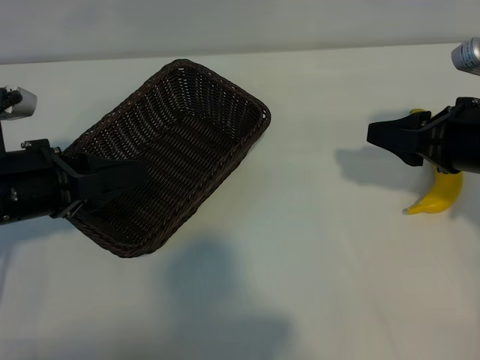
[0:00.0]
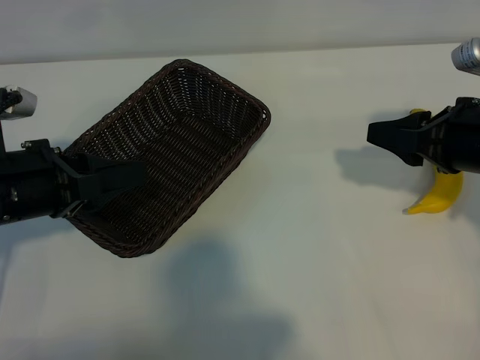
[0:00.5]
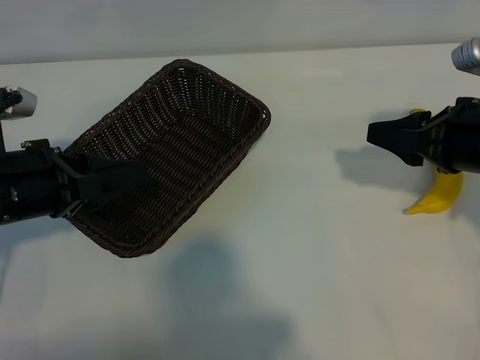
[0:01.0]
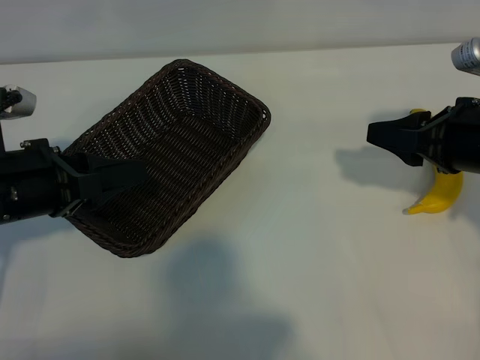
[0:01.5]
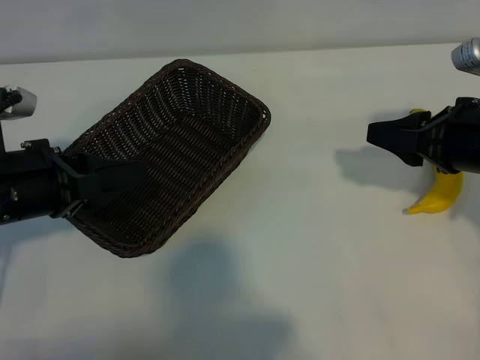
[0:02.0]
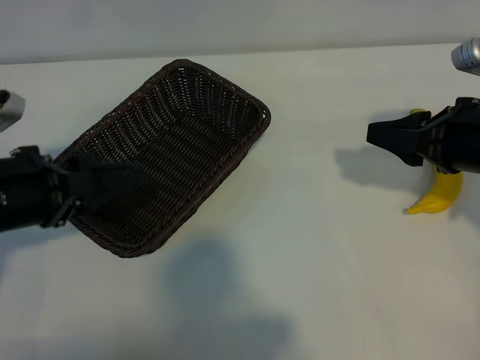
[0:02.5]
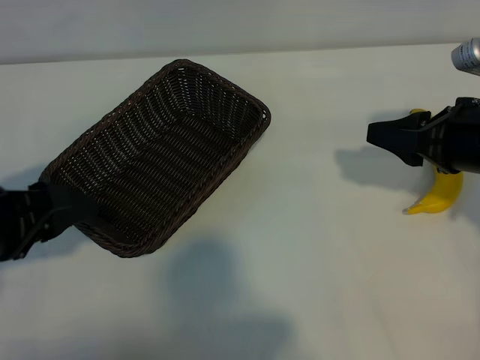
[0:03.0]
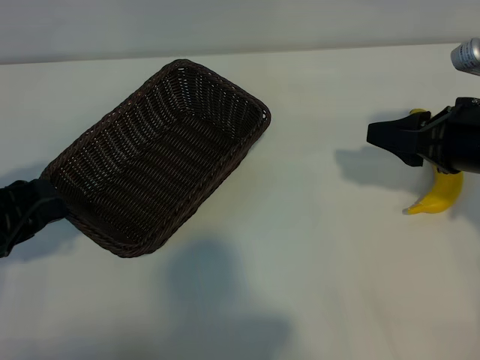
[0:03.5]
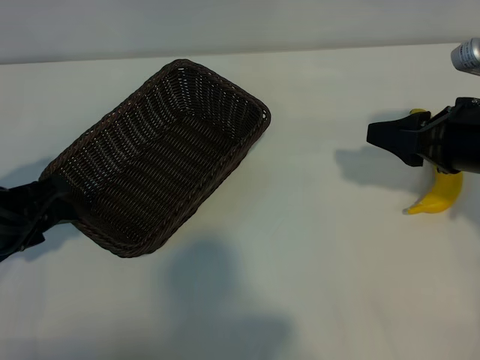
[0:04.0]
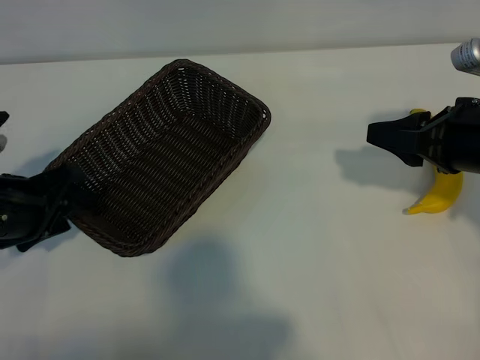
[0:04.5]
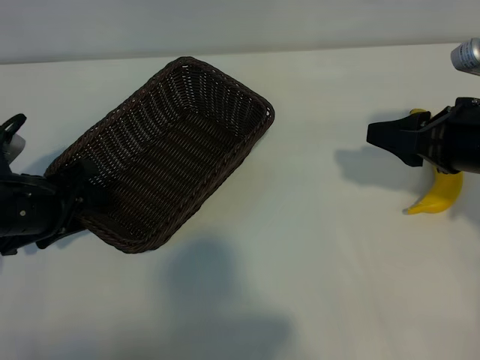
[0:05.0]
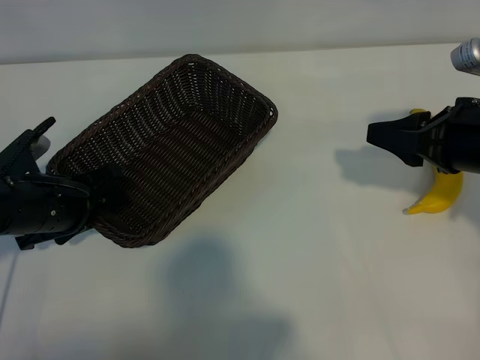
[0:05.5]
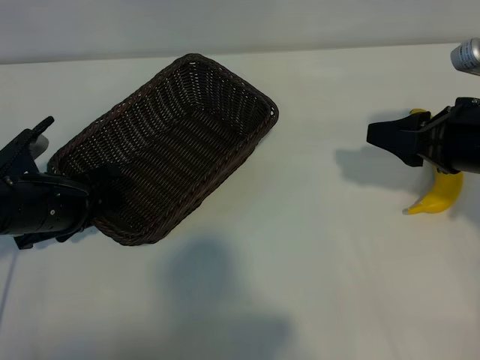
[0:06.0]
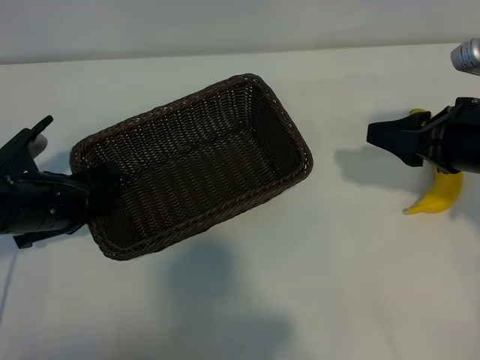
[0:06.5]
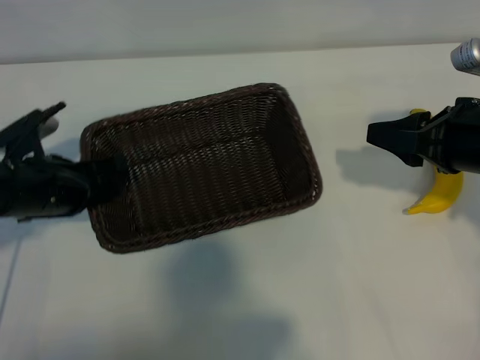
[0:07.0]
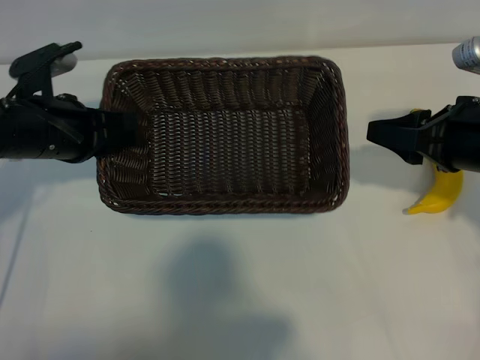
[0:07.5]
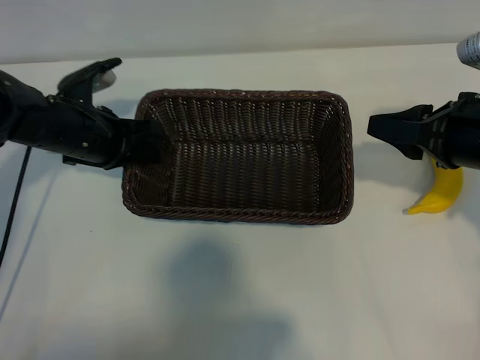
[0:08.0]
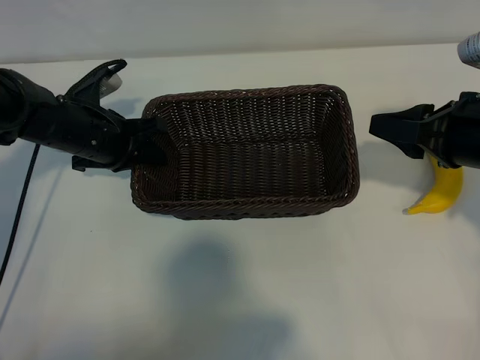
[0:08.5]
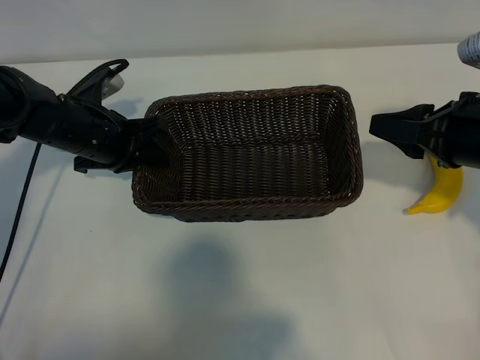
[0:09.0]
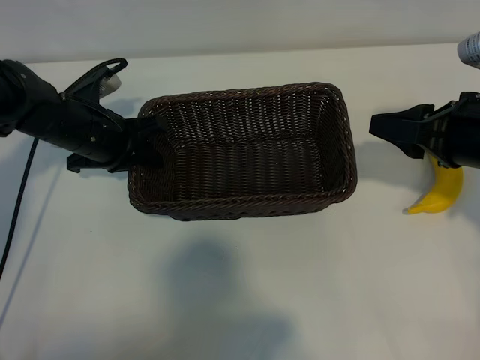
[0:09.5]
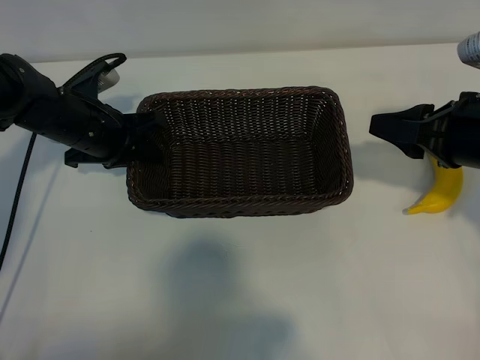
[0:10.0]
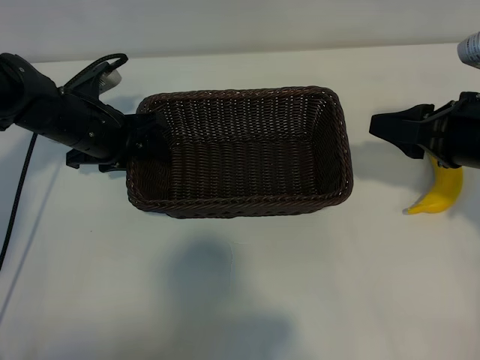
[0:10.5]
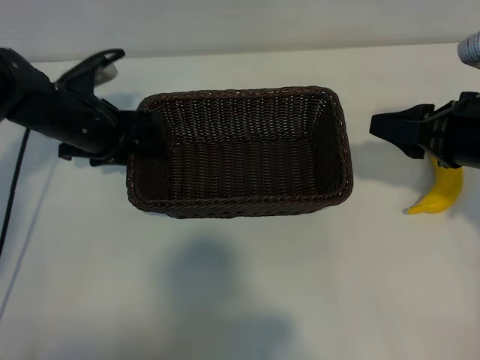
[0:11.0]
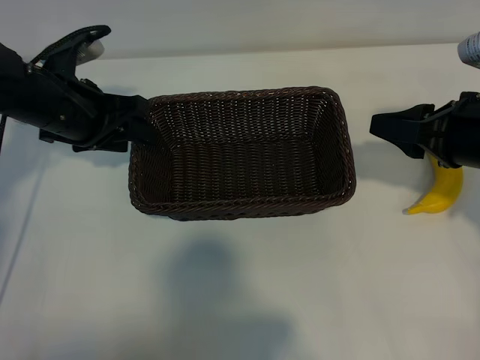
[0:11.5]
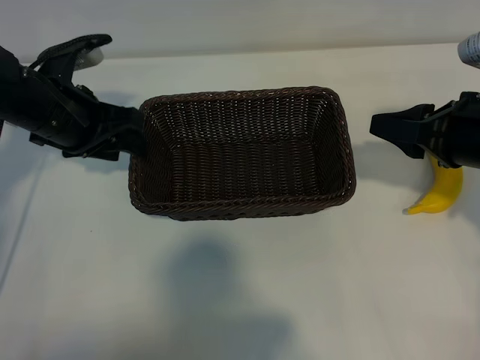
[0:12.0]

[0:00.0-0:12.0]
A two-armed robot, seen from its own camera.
Task of the whole recording: pick up the banana and put it into the basket.
Step, 0:01.5 to 0:05.5: Grasp the basket with the left gripper.
Step, 0:06.0 to 0:11.0: Place the basket in the center of the table with the left gripper.

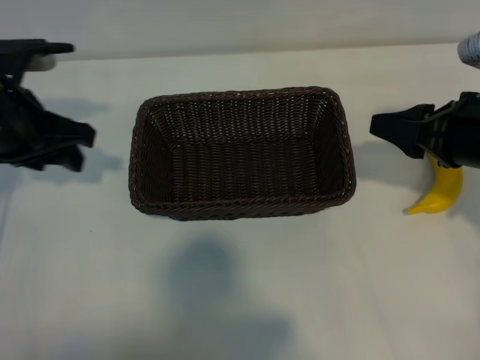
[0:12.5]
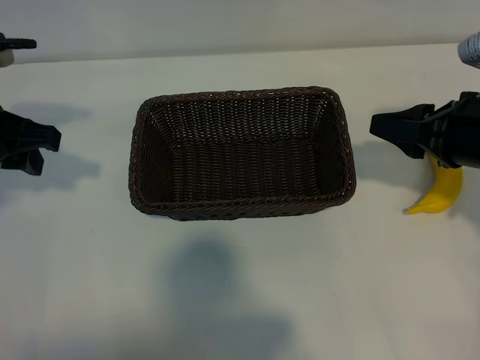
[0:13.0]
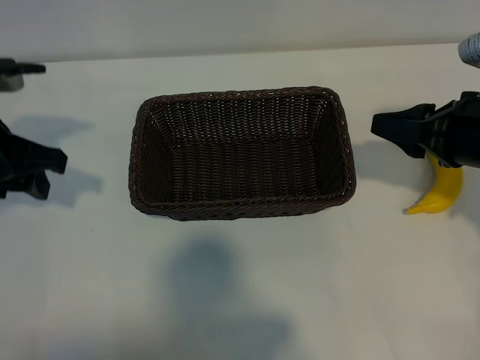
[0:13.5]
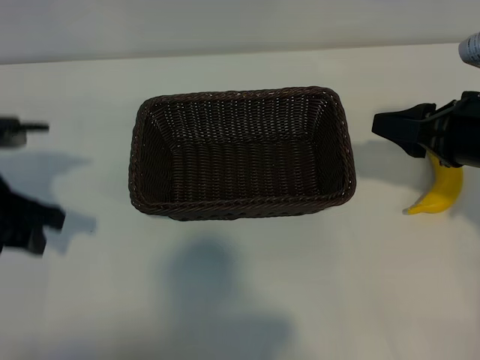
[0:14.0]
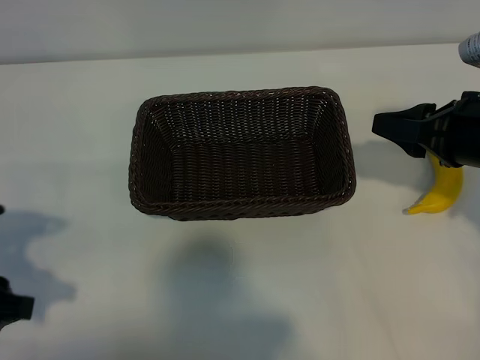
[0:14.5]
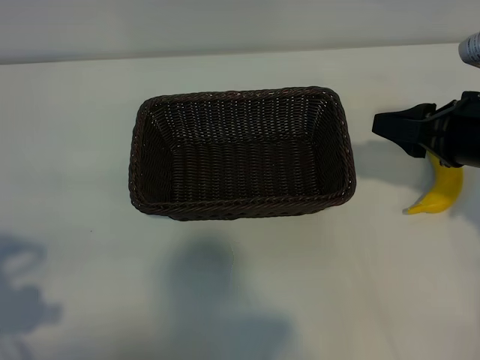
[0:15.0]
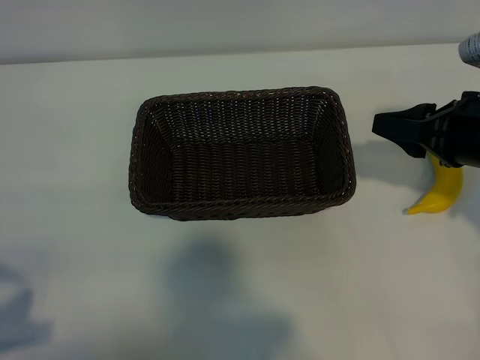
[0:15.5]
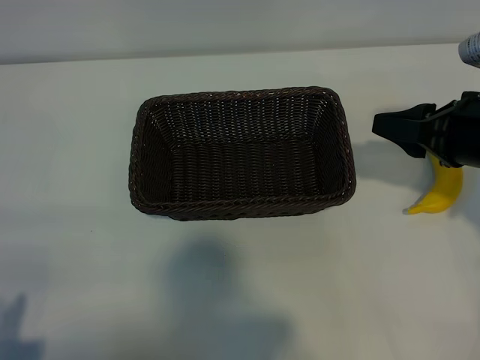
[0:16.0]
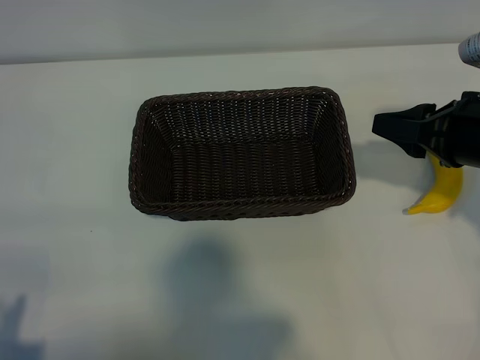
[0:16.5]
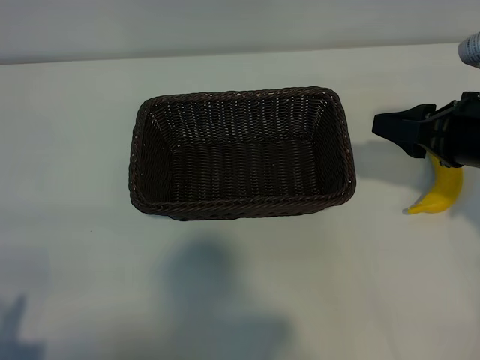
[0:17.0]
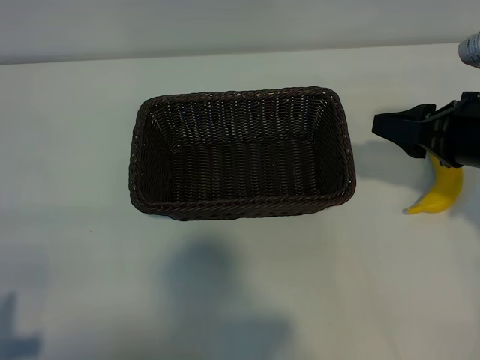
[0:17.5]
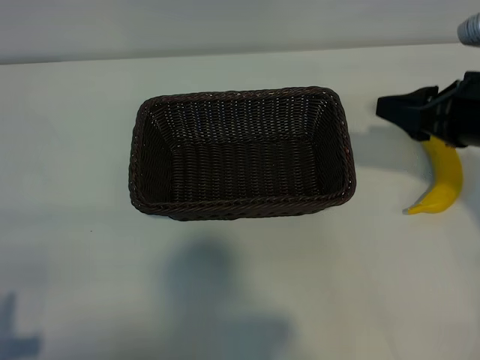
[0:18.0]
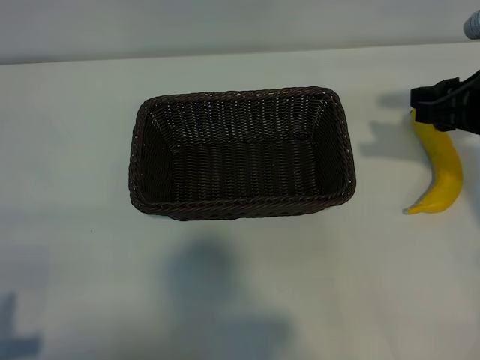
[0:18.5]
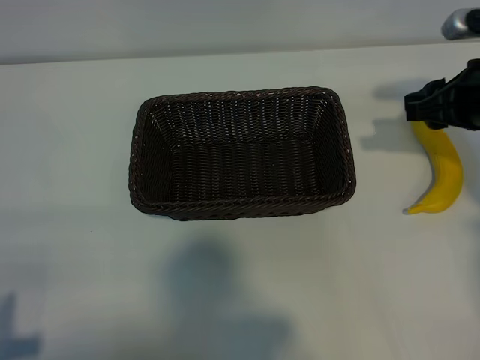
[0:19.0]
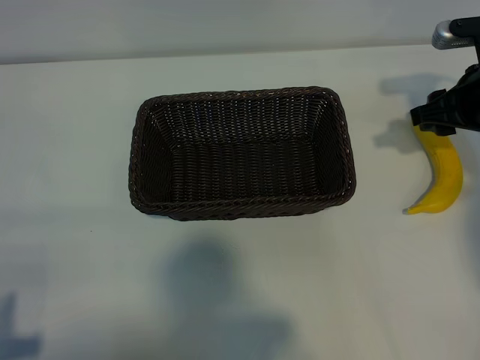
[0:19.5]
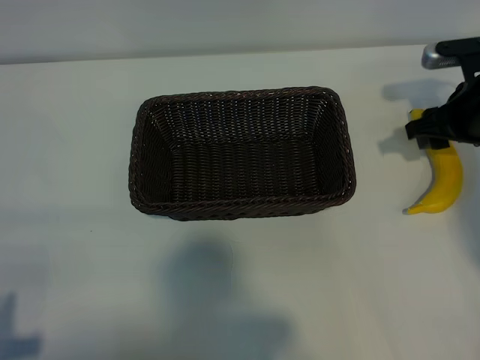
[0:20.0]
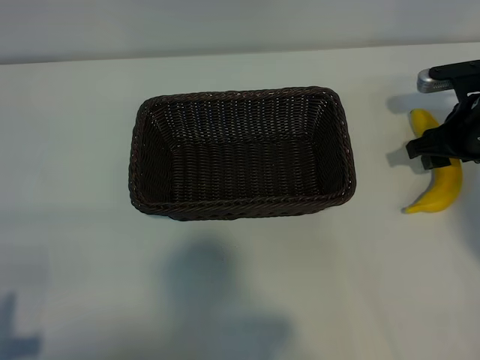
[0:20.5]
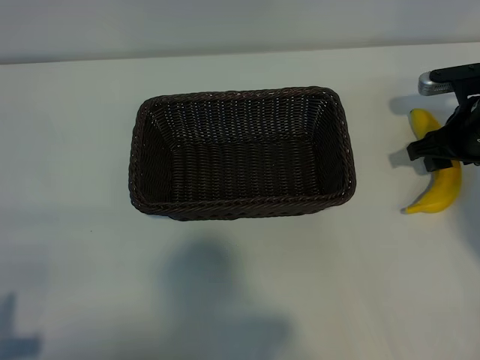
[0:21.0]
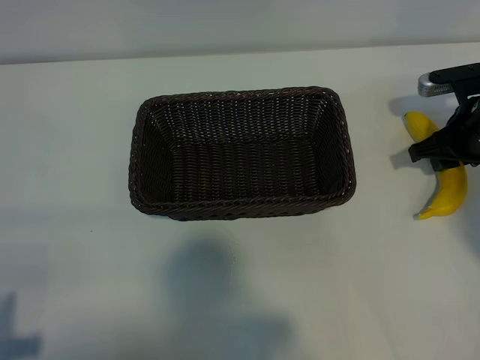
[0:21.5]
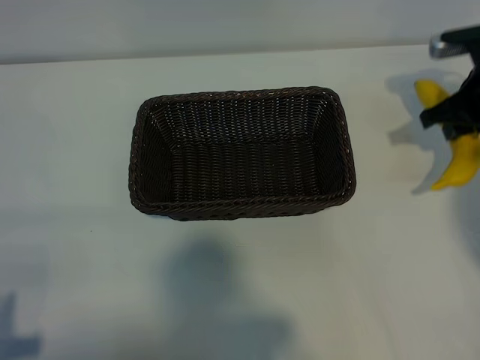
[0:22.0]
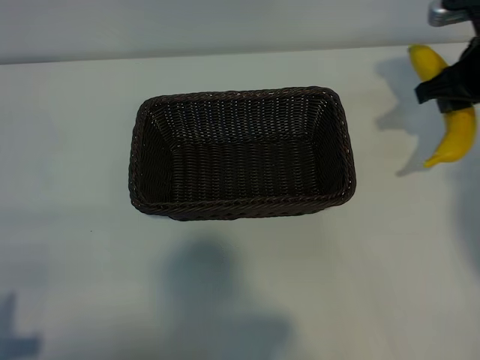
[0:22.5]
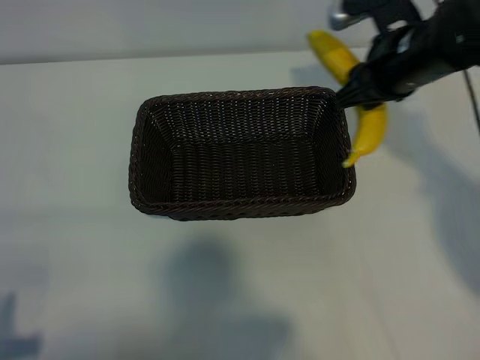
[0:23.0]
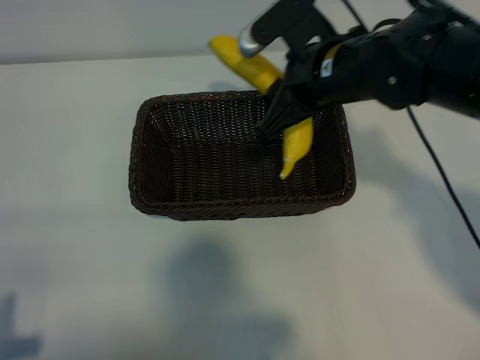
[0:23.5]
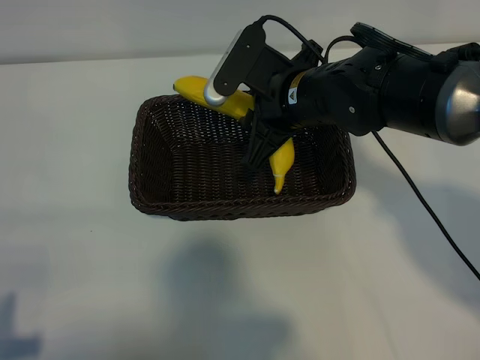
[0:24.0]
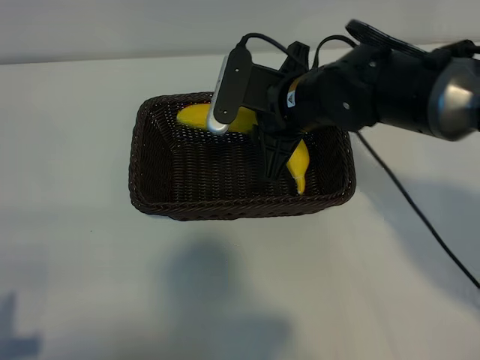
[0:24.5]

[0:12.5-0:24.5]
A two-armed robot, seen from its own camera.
Task of the whole recording: pick up the banana and put it into the basket.
Step, 0:12.5 to 0:21.0: Grasp the banana with right gripper.

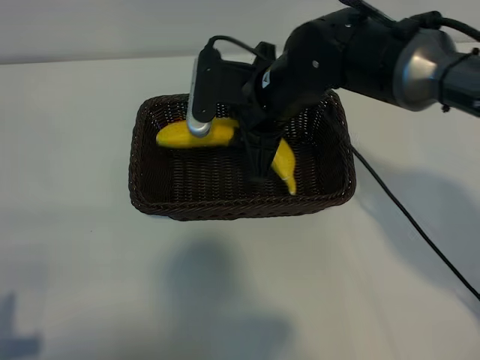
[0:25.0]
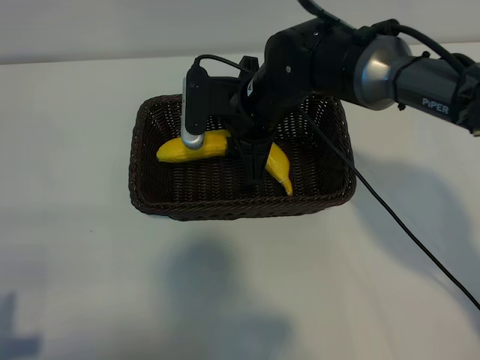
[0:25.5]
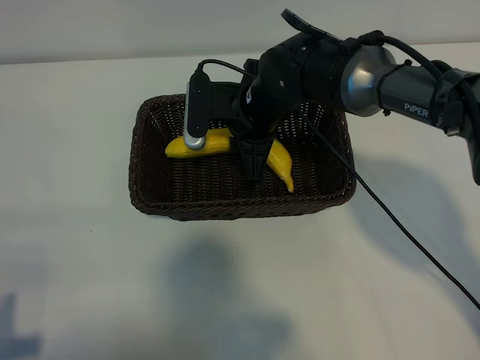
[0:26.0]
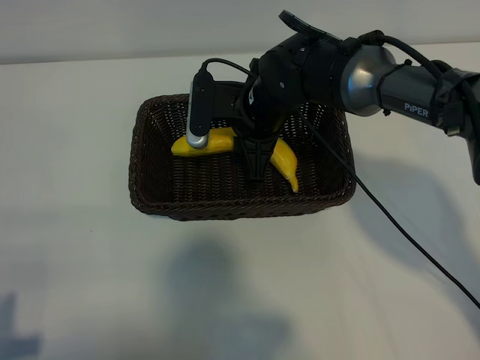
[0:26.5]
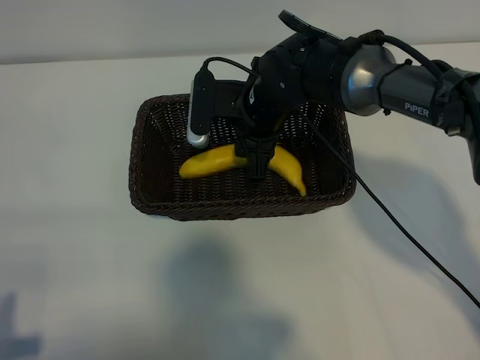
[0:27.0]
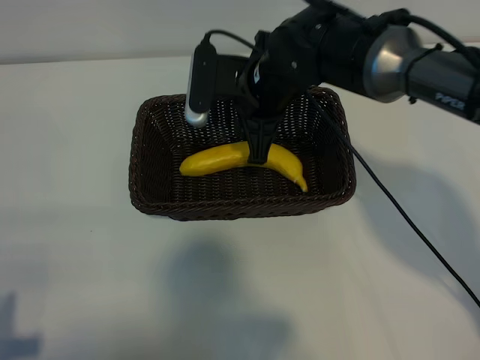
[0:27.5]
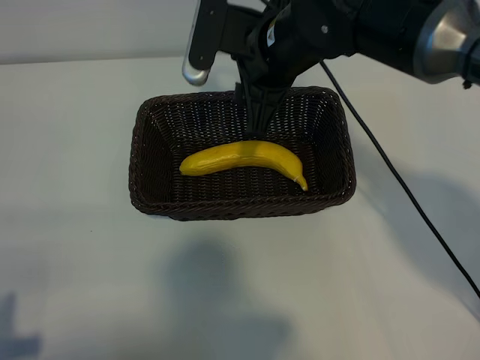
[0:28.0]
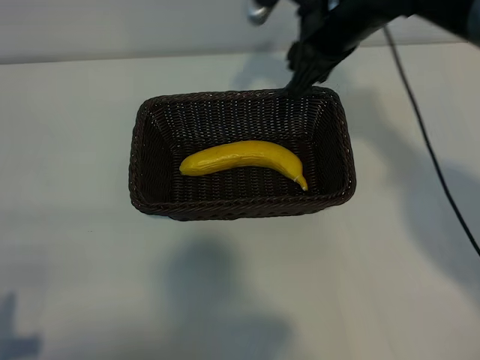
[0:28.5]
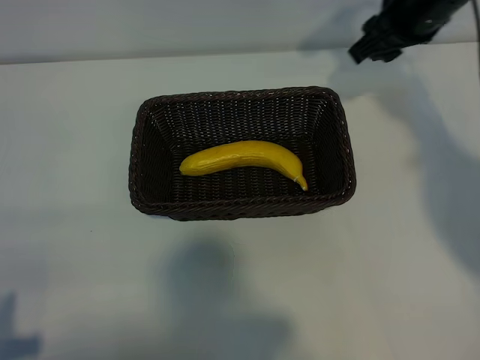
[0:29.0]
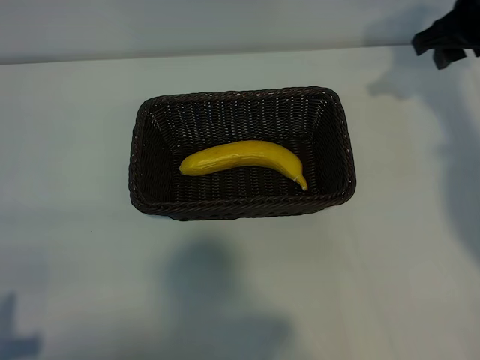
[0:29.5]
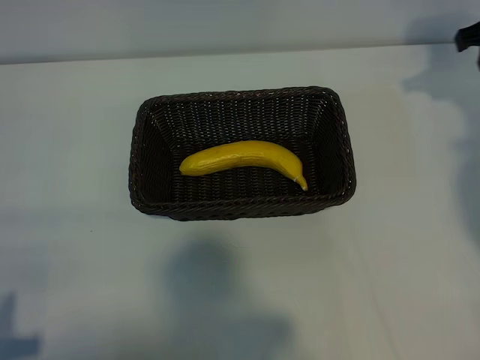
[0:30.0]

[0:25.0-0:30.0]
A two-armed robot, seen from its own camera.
Task of the whole recording: pick up the banana and put it into the basket.
Step, 0:25.0 to 0:27.5: Place the banana in the basket with right gripper.
